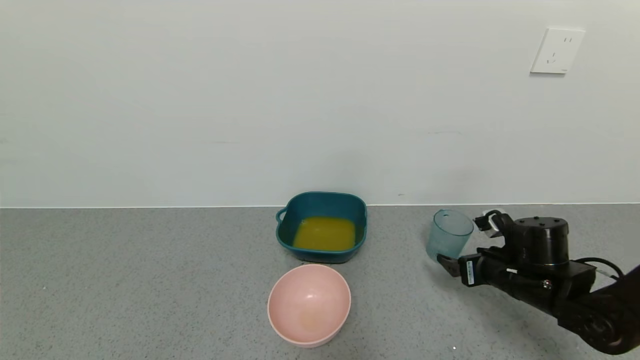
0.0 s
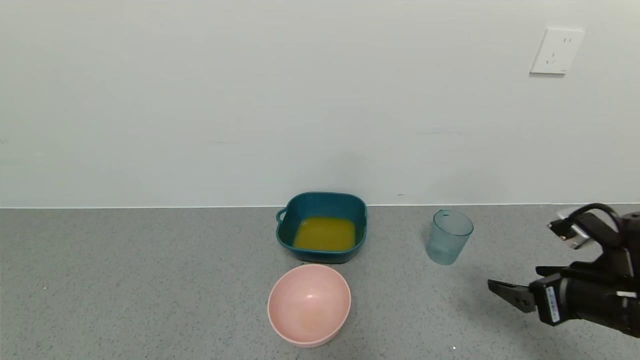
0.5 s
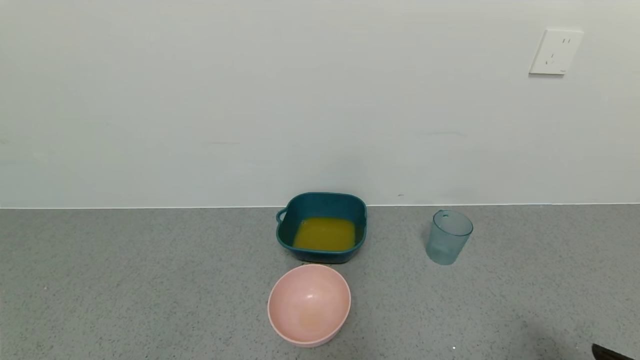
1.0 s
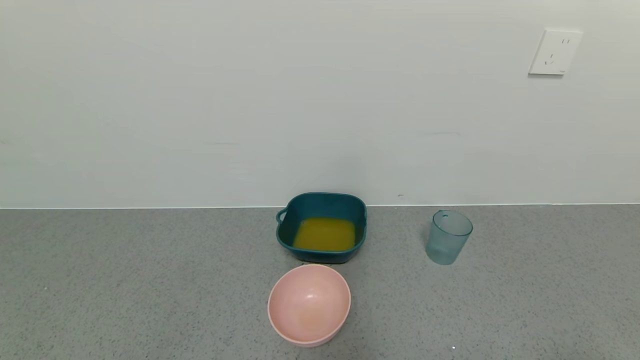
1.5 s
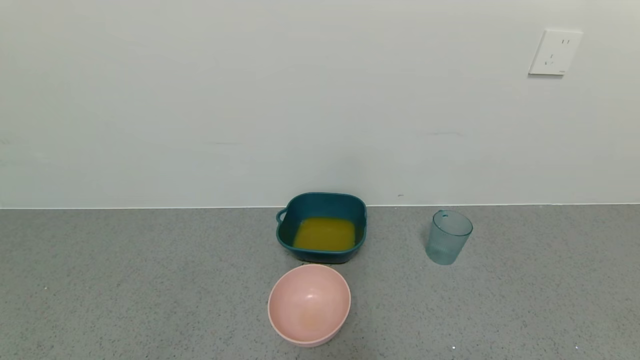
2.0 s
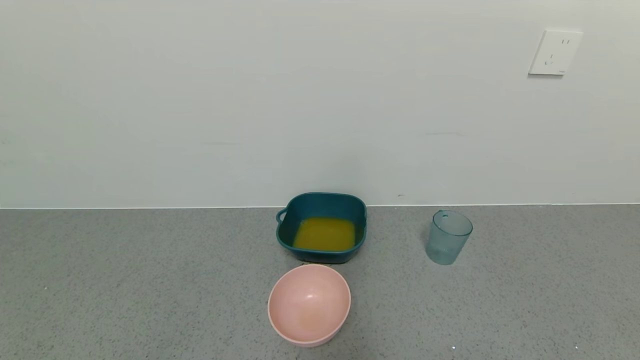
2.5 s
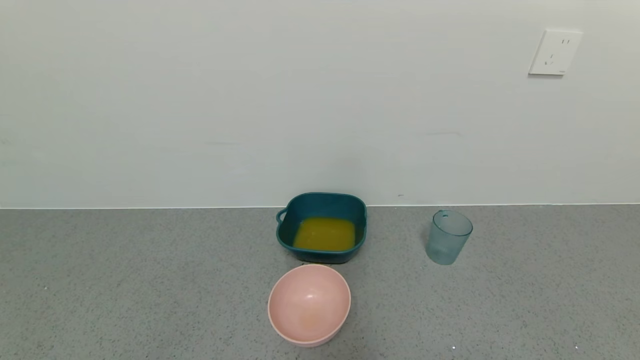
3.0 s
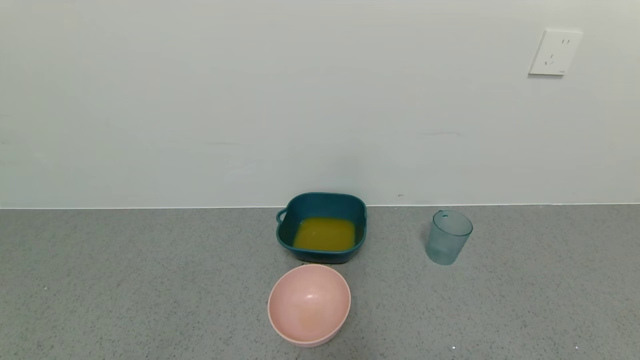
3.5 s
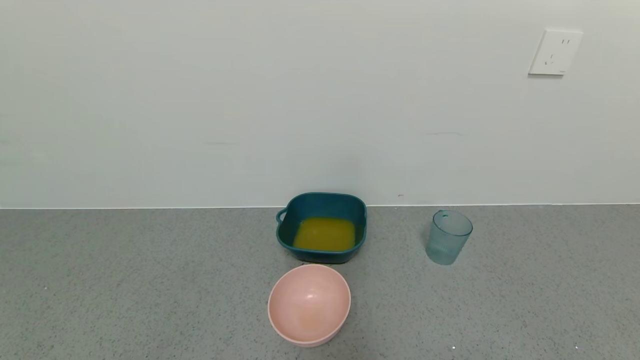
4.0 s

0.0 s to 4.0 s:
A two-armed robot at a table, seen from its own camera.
Task of the whole recording: use a gripper to pick up the cup and pour the liquid into a bowl or tray.
0.0 to 2.0 s: The right gripper travels backward by roughly 35 cm.
